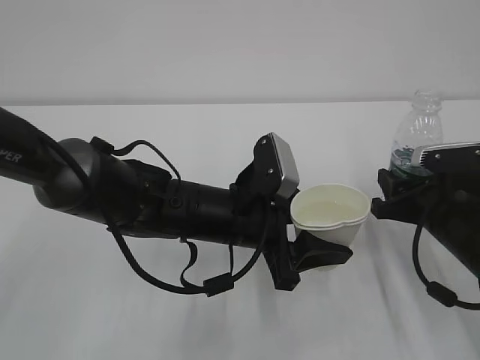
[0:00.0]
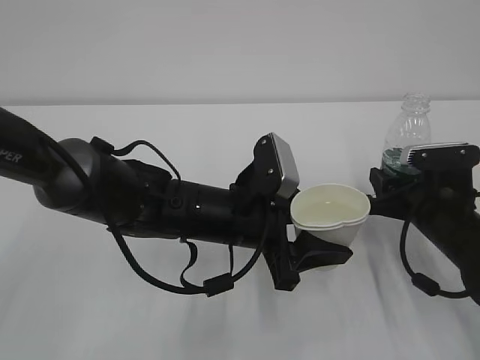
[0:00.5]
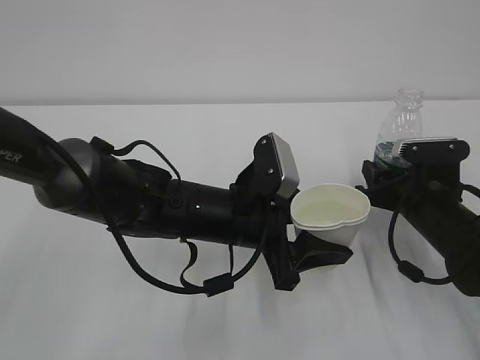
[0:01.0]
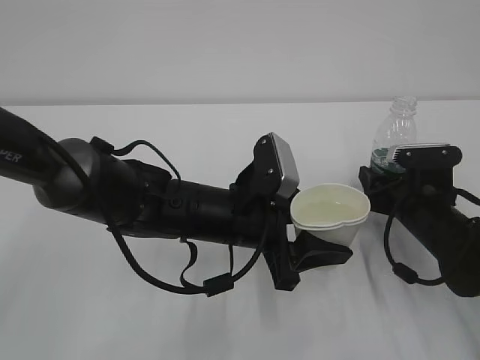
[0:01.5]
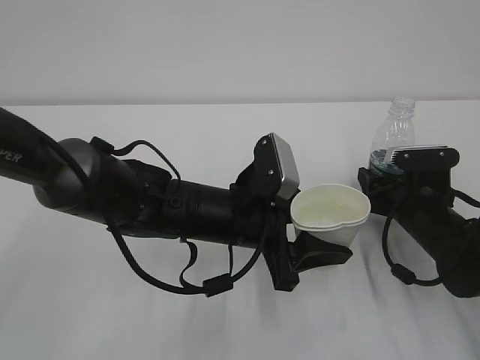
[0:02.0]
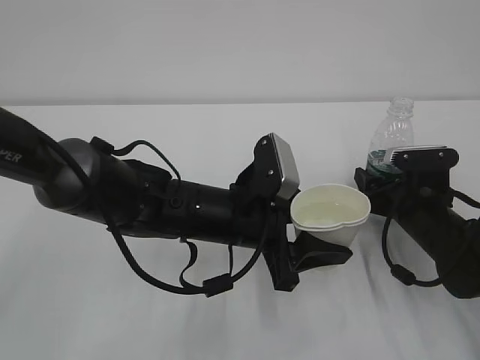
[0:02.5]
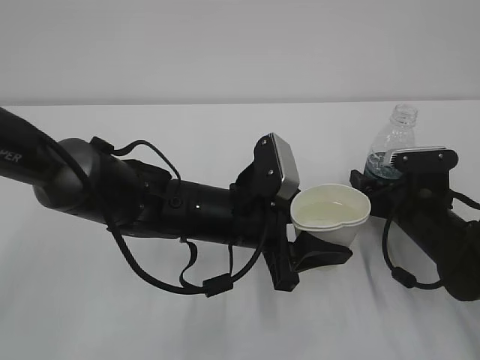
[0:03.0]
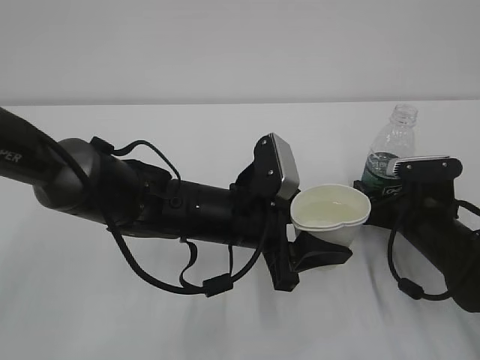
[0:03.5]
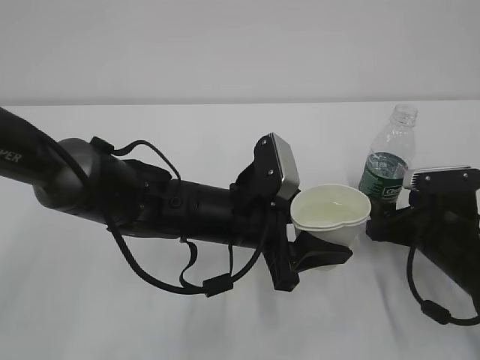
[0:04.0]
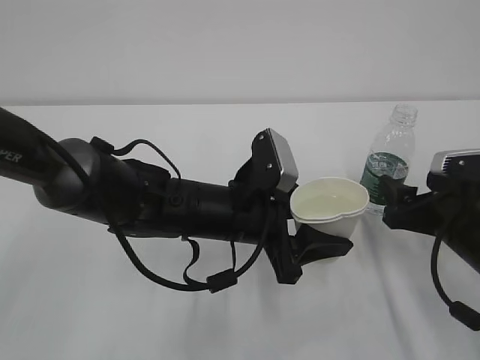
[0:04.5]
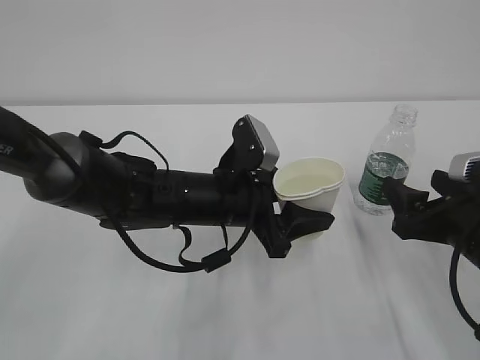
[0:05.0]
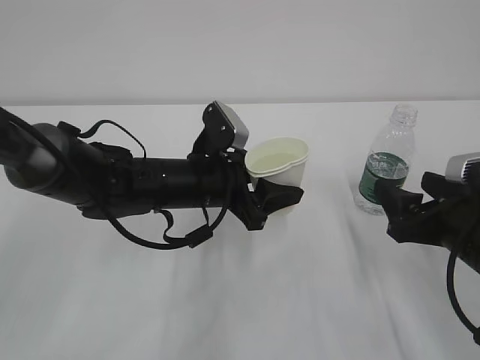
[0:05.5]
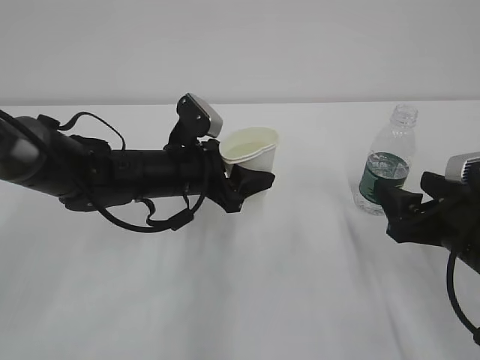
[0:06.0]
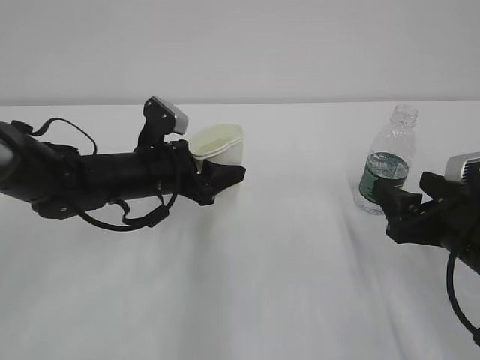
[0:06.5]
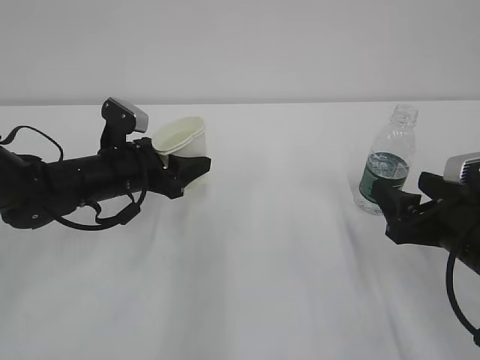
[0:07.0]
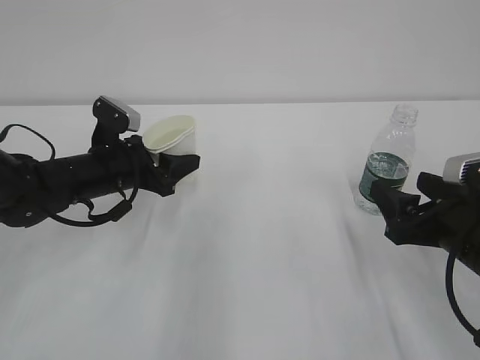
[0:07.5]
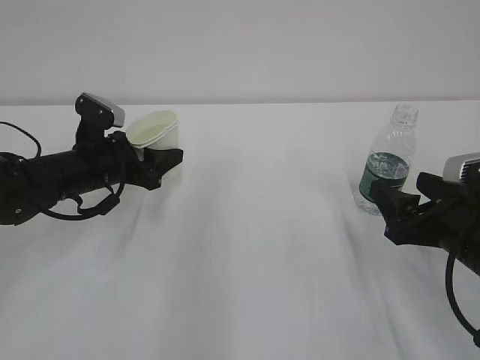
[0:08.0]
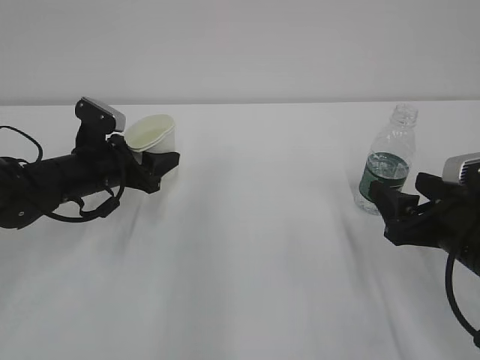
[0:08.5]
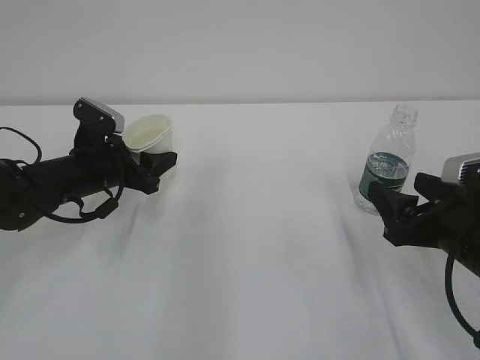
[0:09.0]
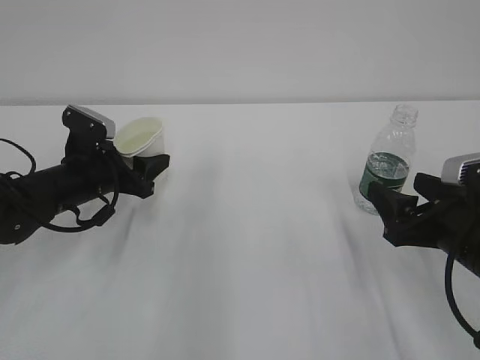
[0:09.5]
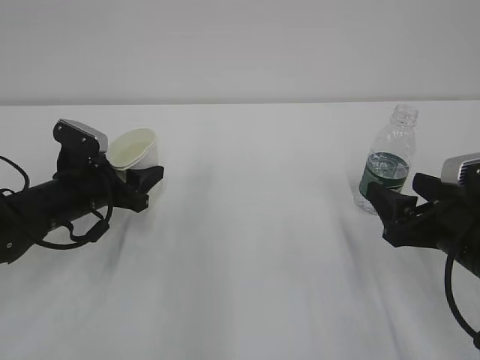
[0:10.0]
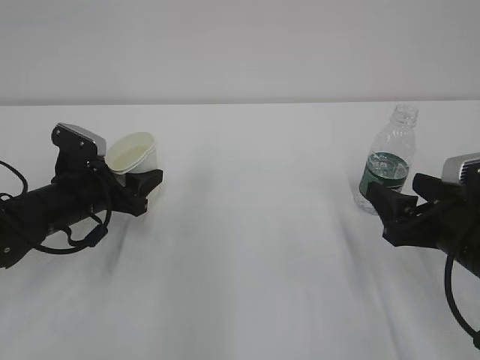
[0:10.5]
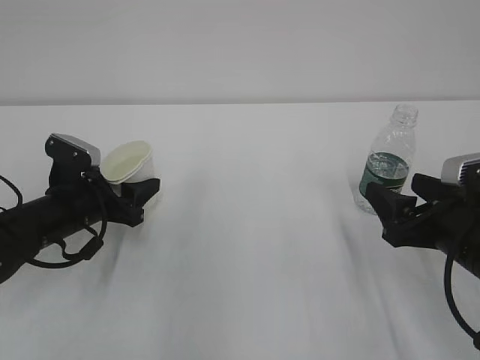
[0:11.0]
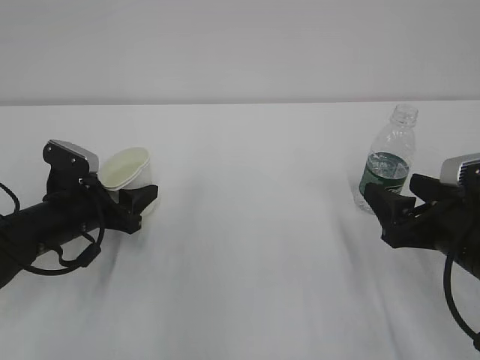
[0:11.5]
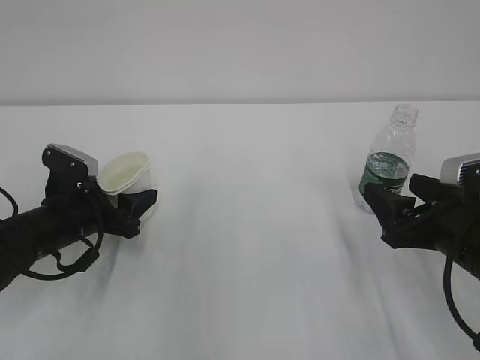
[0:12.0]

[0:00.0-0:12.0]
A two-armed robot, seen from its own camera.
0:00.0 to 0:02.0: The right gripper ends up roughly 5 cm from where it was.
0:02.0 to 0:04.0: The right gripper opens up.
0:04.0 to 0:06.0: The right gripper is displaced upward and backward by roughly 10 cm; the left gripper travels forward and to the left by about 10 cm.
0:06.0 to 0:08.0: The left gripper heads to the left, covering some 10 cm.
0:08.0 to 0:10.0: There are only small adjustments of the grippers.
0:10.0 to 0:12.0: The grippers stay close to where they were, moving slightly.

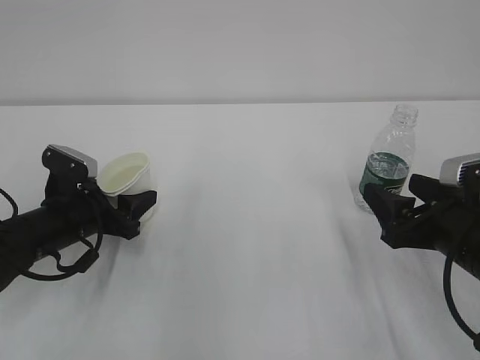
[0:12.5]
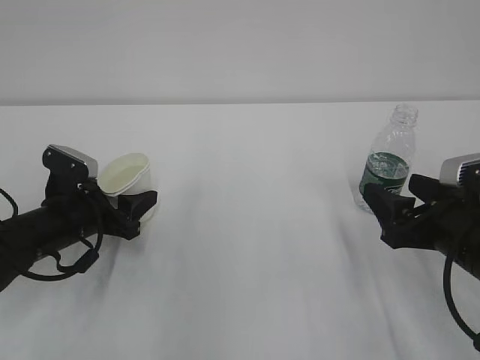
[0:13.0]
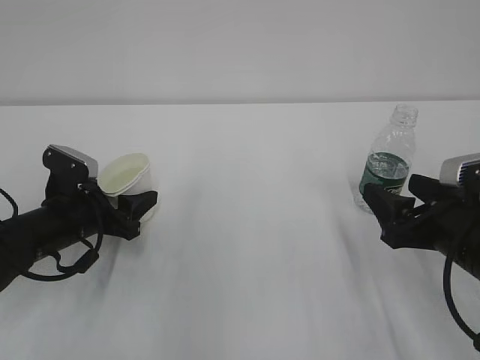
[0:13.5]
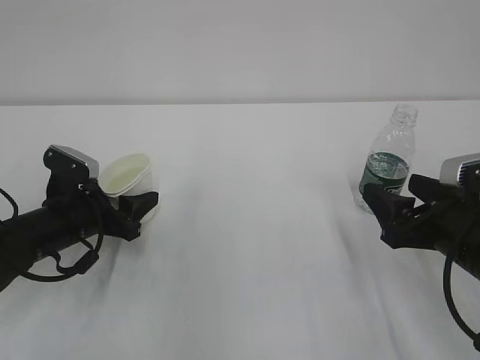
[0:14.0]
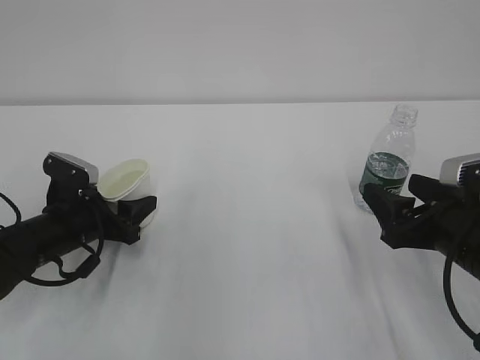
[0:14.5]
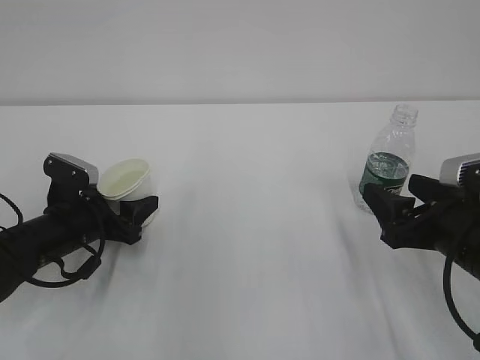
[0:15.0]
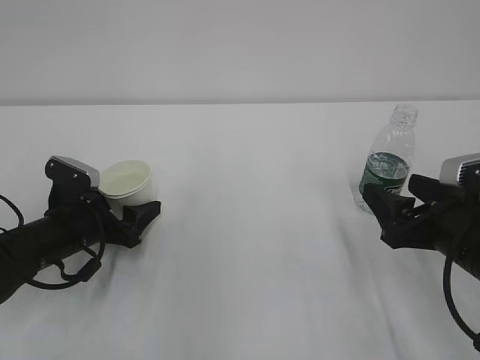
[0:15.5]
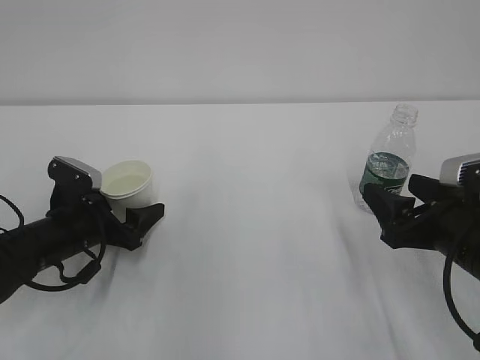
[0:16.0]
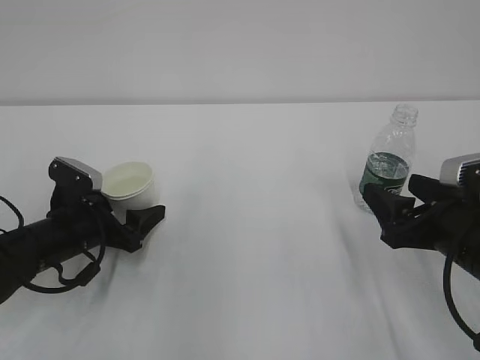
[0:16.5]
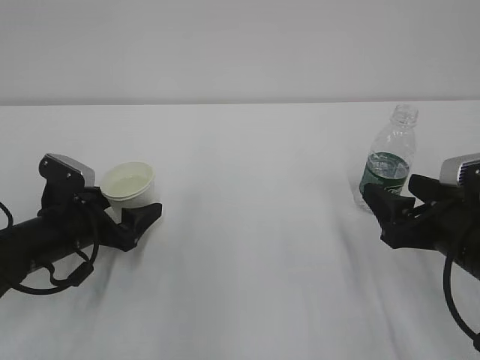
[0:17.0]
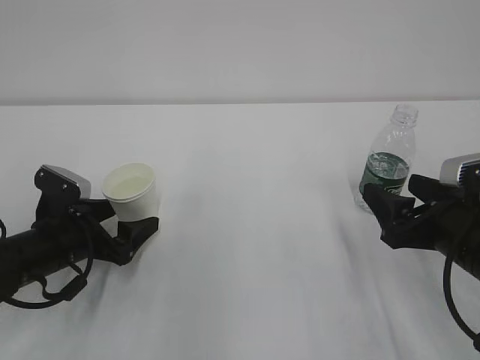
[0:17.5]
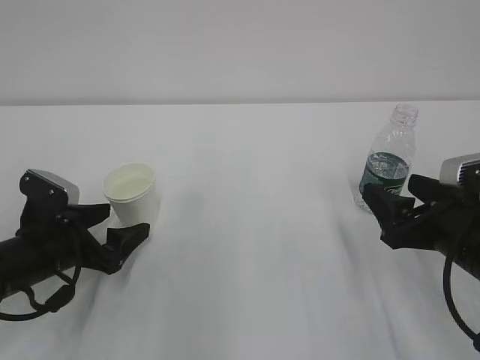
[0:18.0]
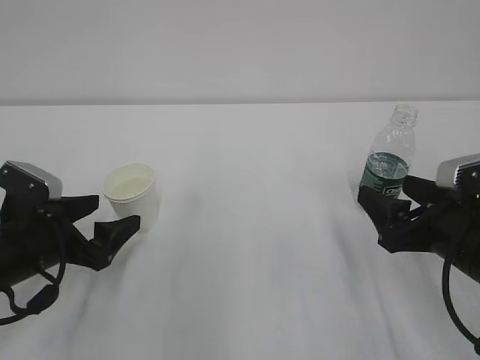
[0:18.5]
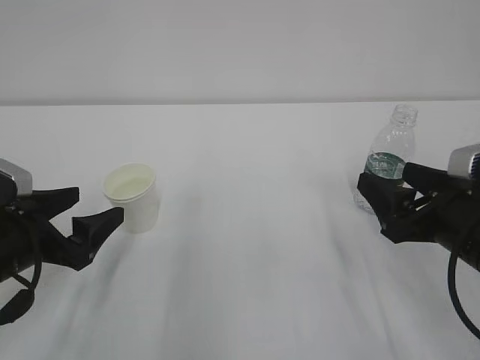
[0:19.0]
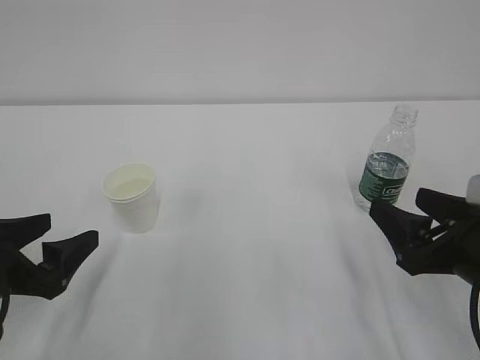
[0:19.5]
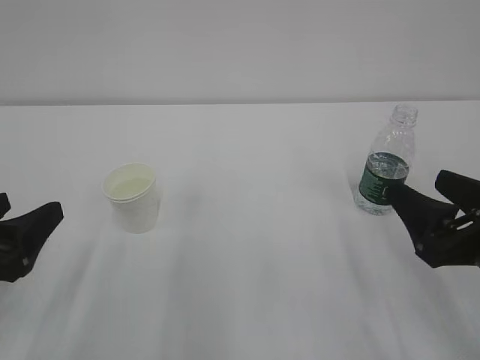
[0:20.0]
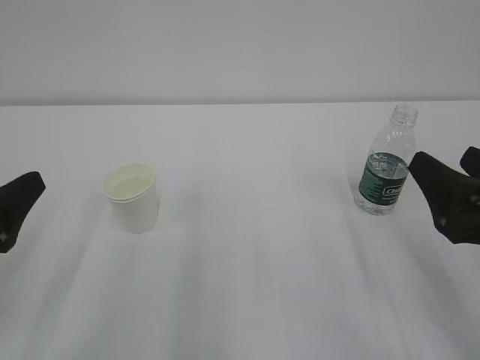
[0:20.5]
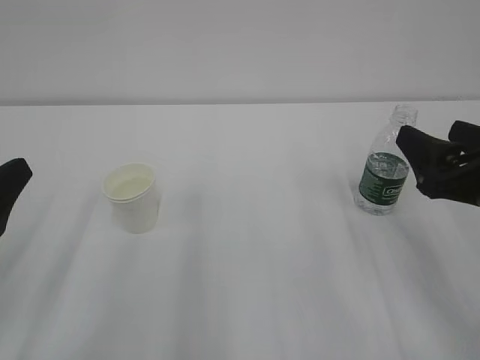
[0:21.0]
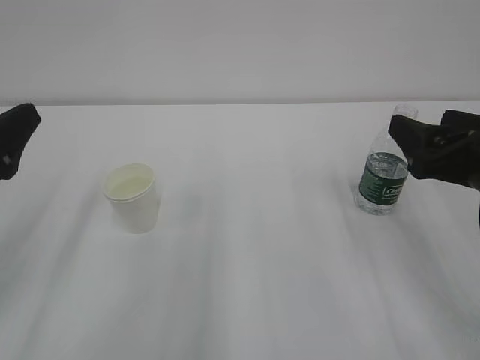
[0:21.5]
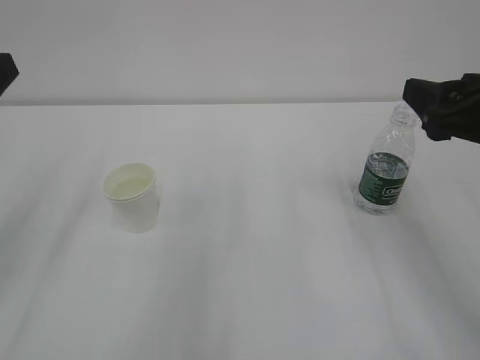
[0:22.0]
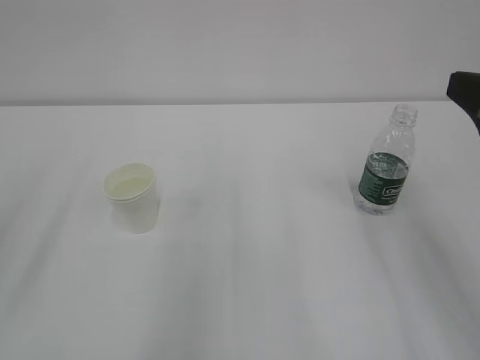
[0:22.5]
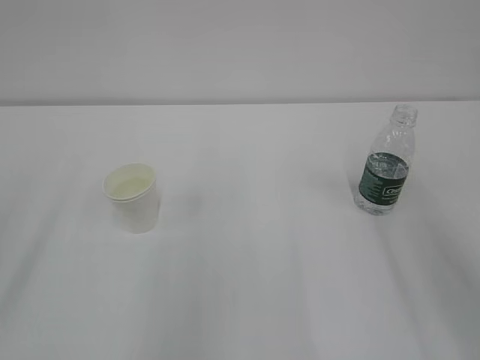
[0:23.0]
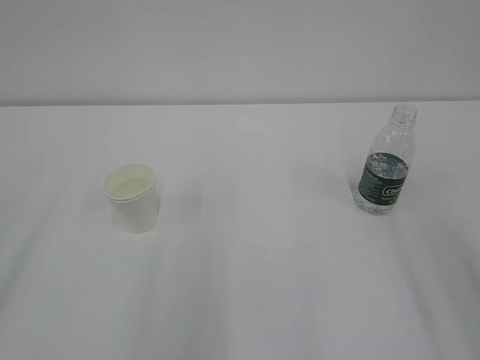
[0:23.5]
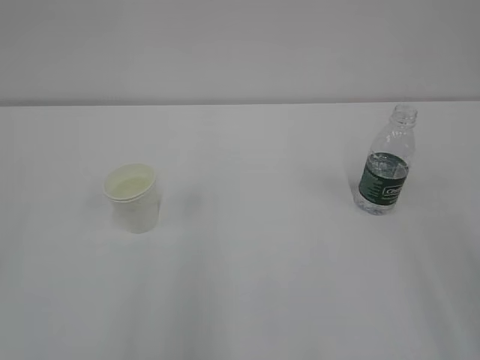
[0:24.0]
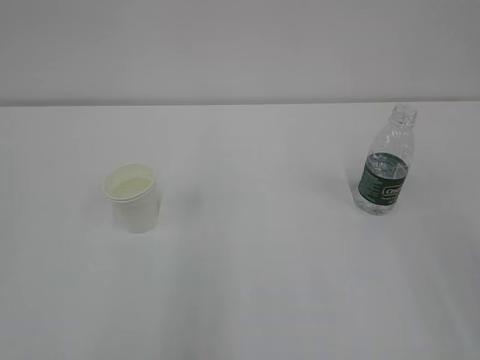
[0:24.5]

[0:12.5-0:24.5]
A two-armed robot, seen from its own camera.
0:12.5 to 0:14.5: The two grippers keep their place.
0:14.5 to 0:16.5: The left gripper opens up.
0:16.5 to 0:18.5: The left gripper is displaced backward by roughly 5 cm.
0:18.5 to 0:20.5: The left gripper travels upward and backward by approximately 15 cm. The right gripper travels upward and backward by approximately 5 cm.
0:20.5 to 0:22.5: Both grippers travel together upward, roughly 10 cm.
0:22.5 to 0:24.5: The right gripper moves backward and upward, roughly 15 cm.
